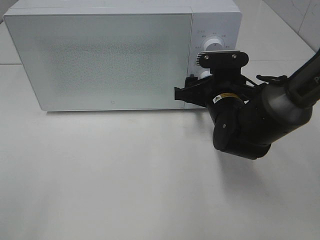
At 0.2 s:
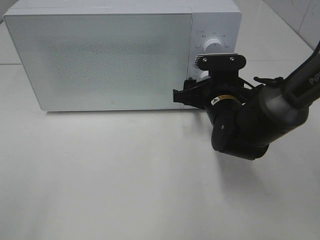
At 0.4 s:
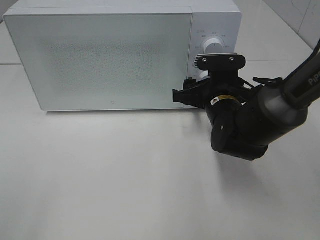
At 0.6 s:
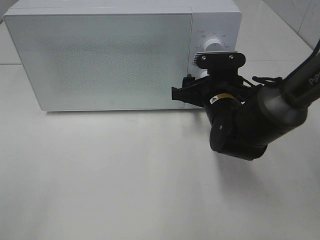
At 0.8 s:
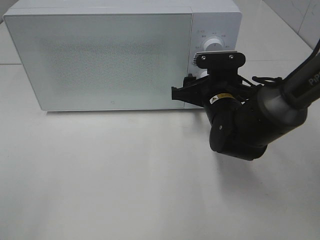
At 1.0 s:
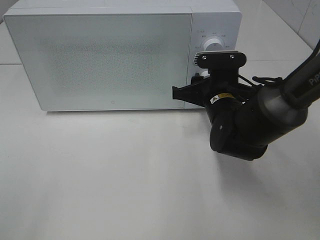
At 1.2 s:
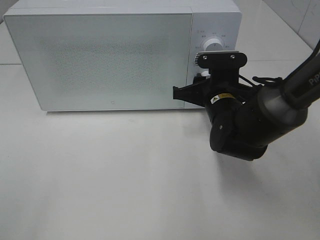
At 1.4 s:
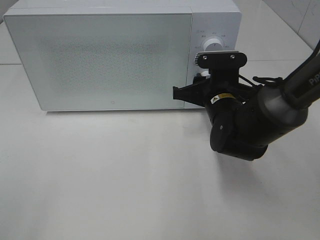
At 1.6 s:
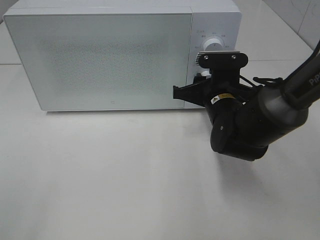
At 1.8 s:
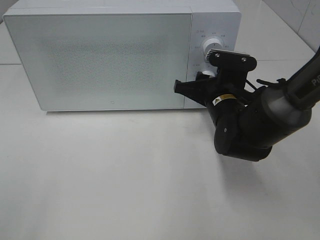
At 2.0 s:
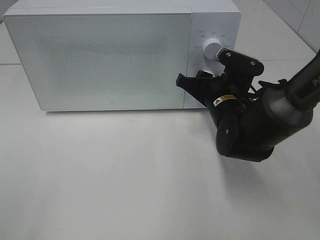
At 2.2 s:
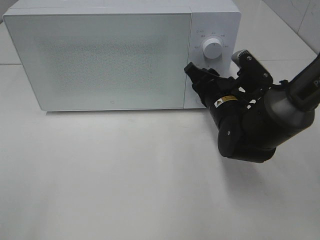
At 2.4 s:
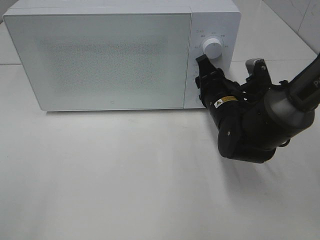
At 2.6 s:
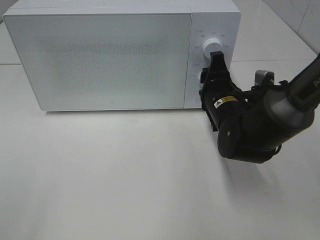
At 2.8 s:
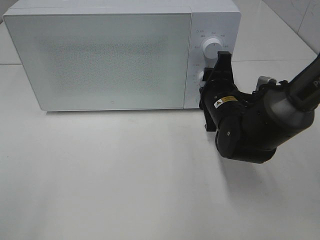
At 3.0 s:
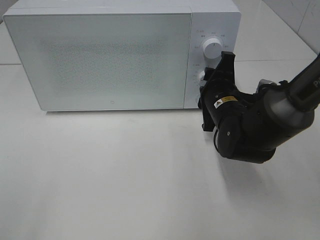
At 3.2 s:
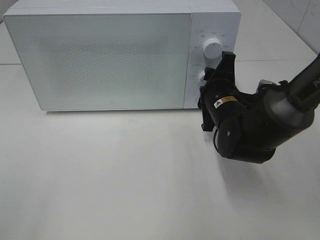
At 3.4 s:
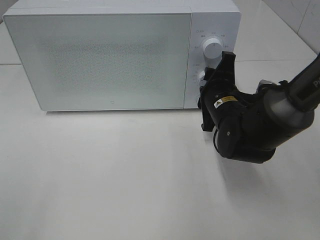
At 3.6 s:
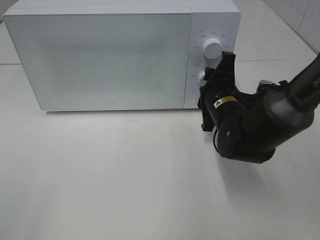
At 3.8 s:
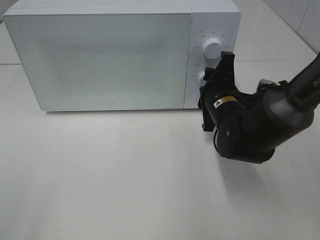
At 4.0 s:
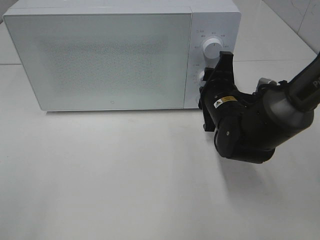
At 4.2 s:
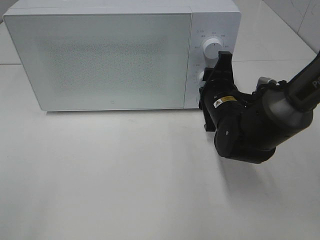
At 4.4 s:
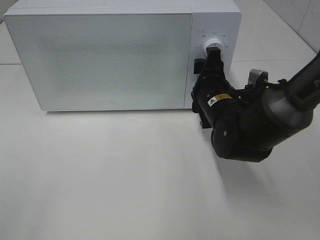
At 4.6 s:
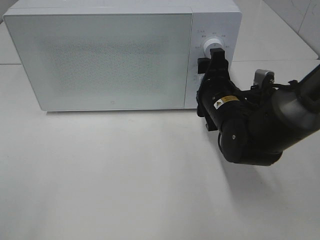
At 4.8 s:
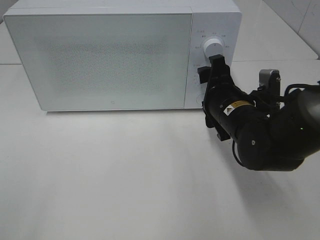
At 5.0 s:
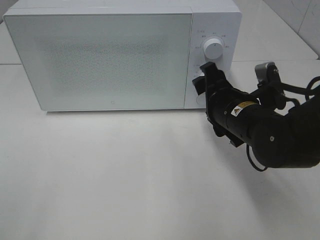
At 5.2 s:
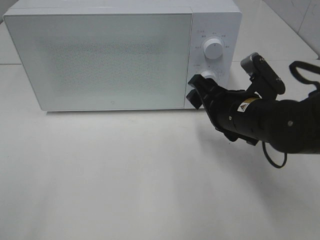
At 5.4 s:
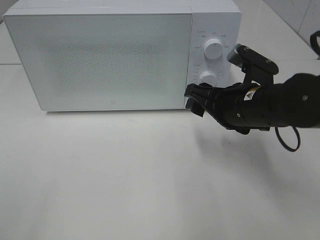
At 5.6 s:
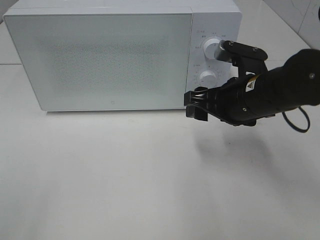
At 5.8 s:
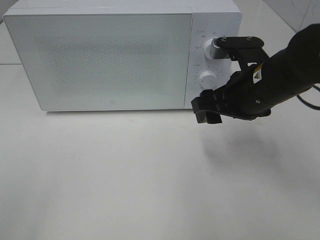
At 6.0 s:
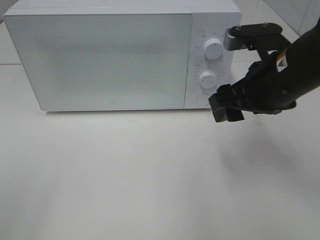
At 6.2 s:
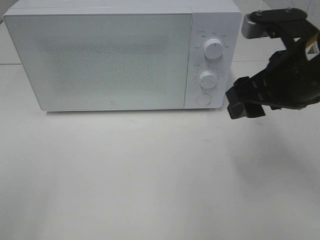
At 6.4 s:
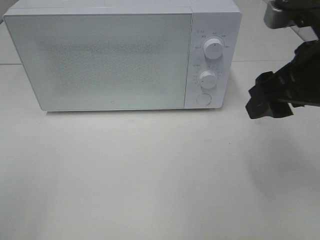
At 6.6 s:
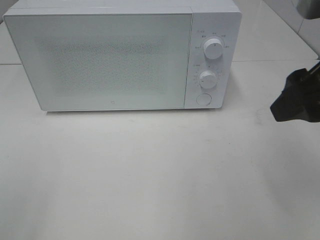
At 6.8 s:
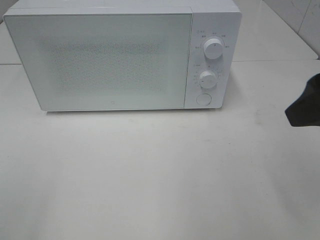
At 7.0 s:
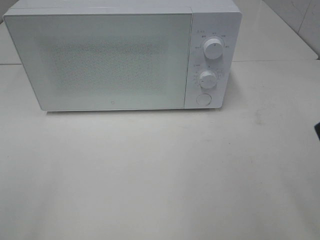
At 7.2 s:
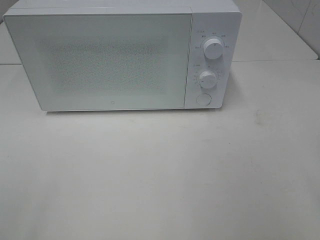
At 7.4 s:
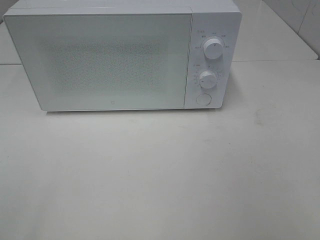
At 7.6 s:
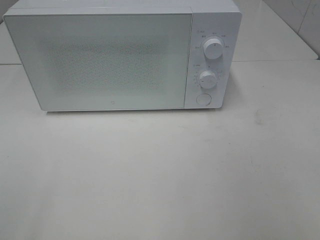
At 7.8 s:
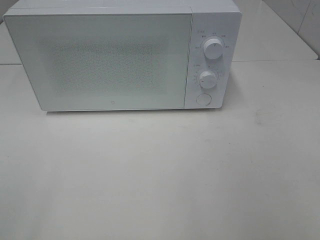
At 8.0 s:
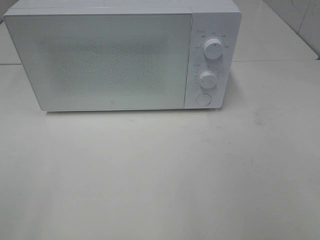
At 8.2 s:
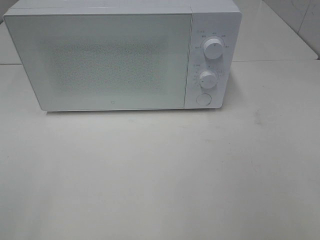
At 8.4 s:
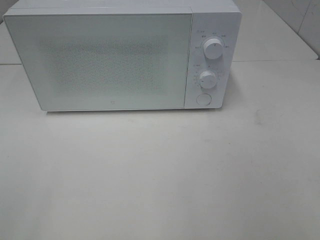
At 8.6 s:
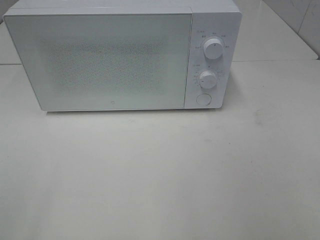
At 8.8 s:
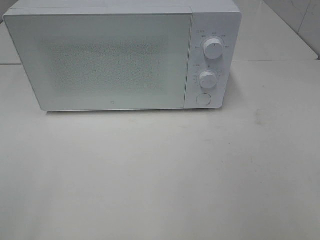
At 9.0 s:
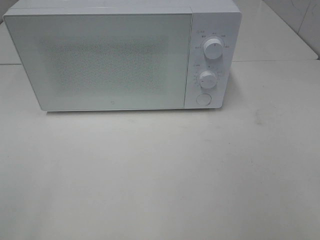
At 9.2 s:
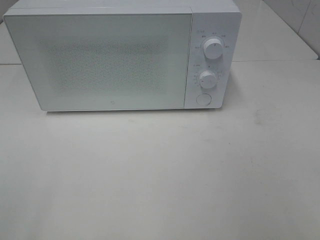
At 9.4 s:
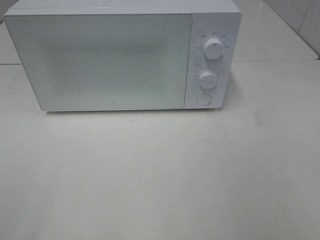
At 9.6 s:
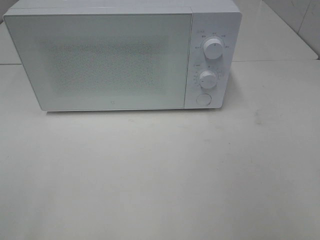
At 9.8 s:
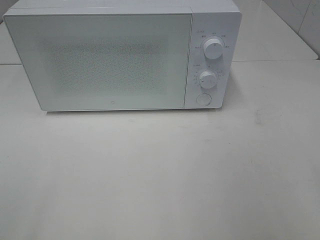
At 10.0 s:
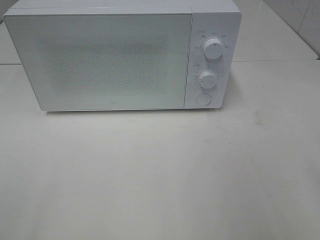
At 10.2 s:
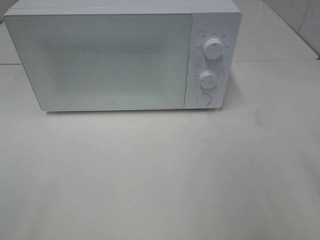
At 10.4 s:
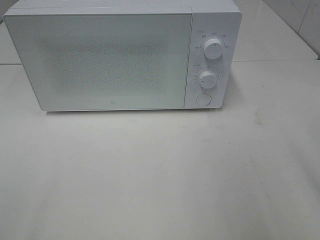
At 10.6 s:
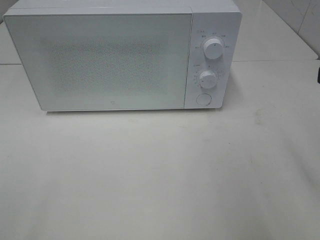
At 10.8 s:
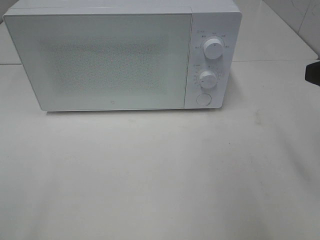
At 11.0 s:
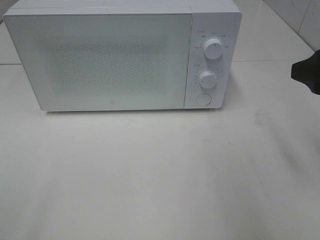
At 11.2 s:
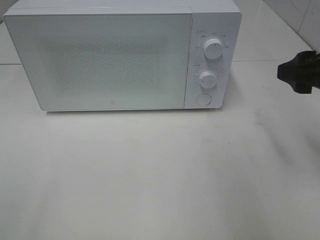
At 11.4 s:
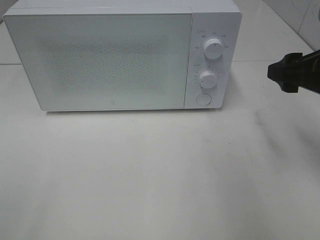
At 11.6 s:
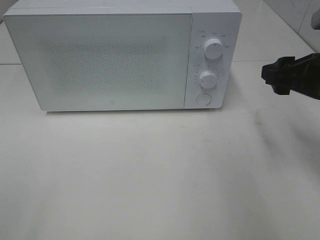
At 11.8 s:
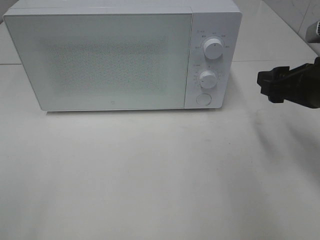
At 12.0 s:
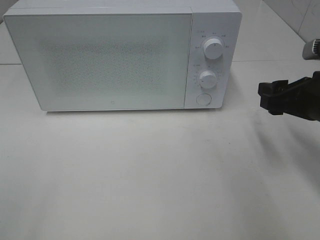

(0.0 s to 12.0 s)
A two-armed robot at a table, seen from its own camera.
Task of the whole recording: Heat the burger.
Step, 0.0 s - 4.4 s: Right hand: twist timer button.
0.0 s - 1.6 s: The right gripper closes up.
3.0 s - 4.4 s: There are only small adjustments of the grippers.
4.4 s - 6.0 s: The right gripper heads upward and backward, covering approximately 15 cm.
6.0 s - 7.6 s: The right gripper shifts some 25 cm backward and to the right.
10.4 s - 12.0 s: The right gripper travels downward and forward by roughly 15 cm.

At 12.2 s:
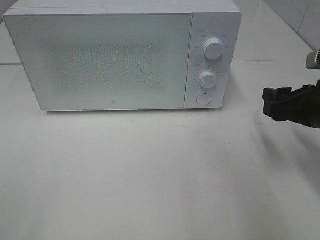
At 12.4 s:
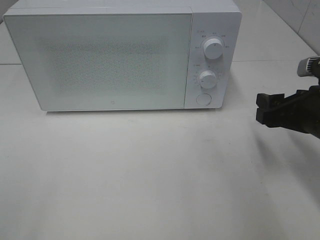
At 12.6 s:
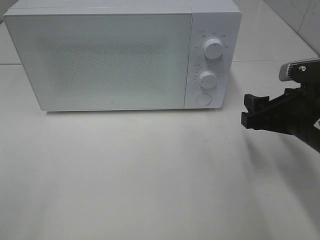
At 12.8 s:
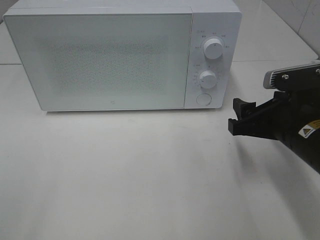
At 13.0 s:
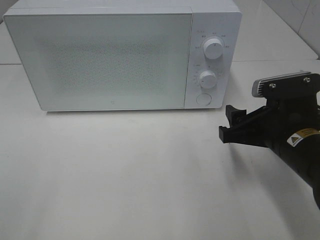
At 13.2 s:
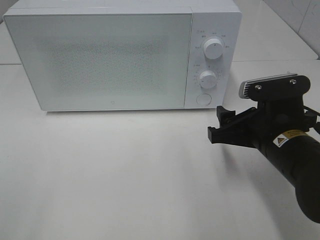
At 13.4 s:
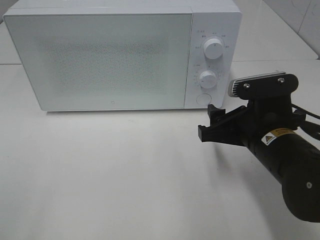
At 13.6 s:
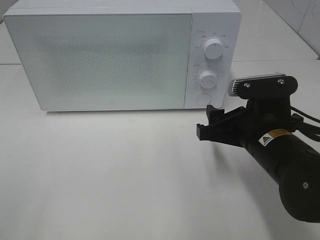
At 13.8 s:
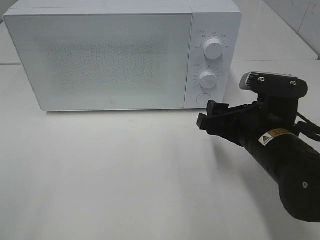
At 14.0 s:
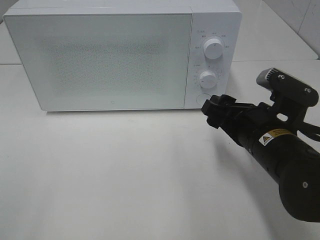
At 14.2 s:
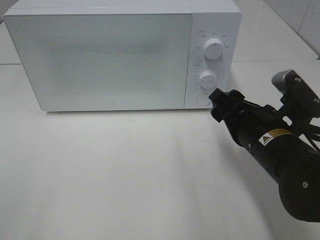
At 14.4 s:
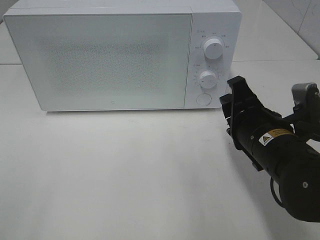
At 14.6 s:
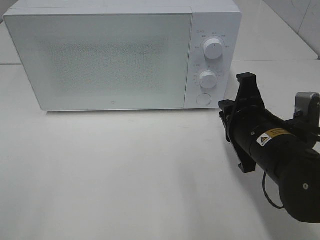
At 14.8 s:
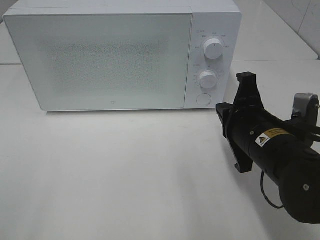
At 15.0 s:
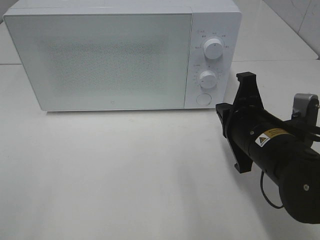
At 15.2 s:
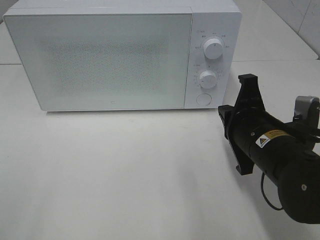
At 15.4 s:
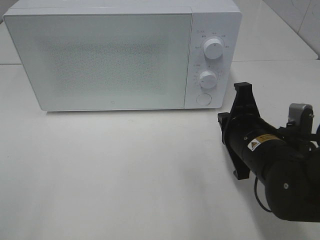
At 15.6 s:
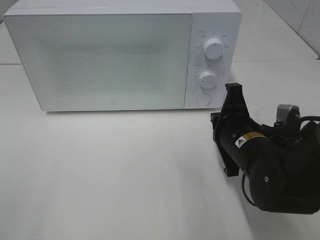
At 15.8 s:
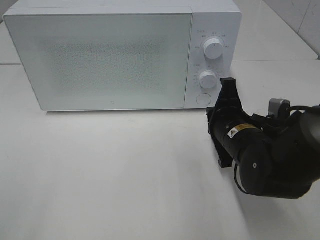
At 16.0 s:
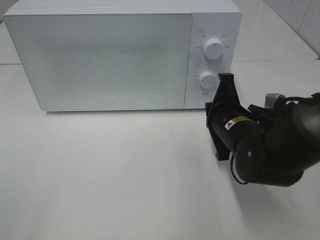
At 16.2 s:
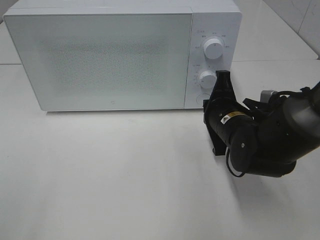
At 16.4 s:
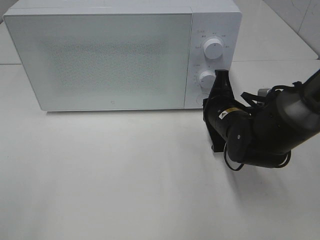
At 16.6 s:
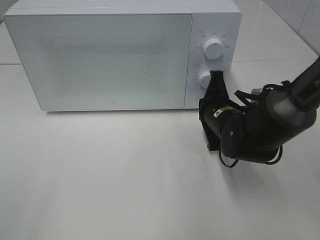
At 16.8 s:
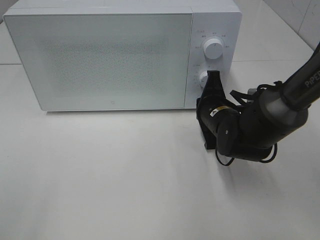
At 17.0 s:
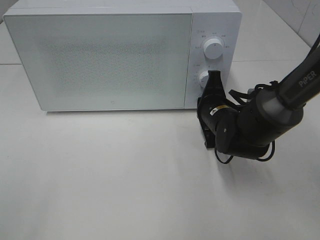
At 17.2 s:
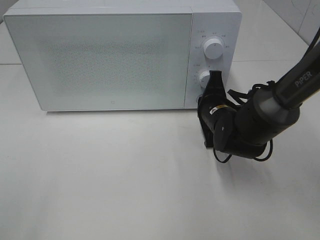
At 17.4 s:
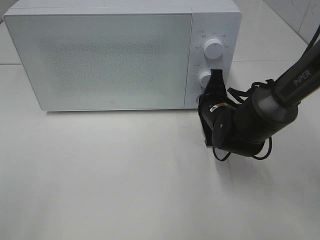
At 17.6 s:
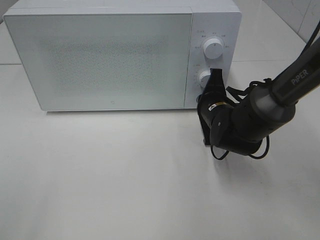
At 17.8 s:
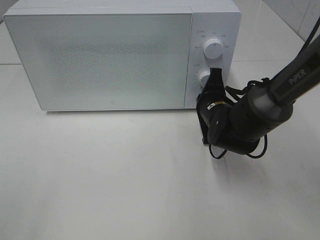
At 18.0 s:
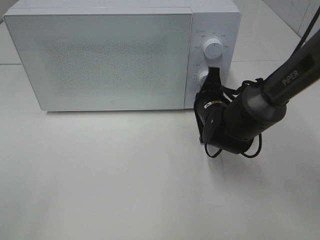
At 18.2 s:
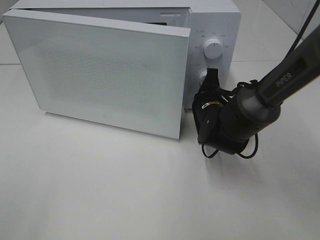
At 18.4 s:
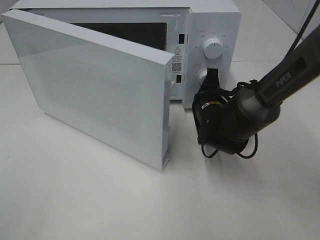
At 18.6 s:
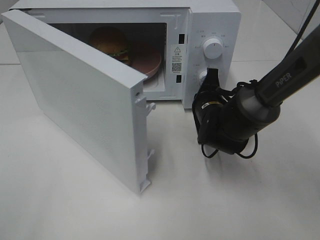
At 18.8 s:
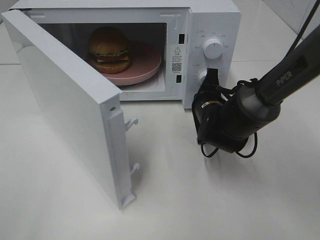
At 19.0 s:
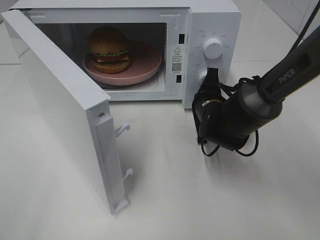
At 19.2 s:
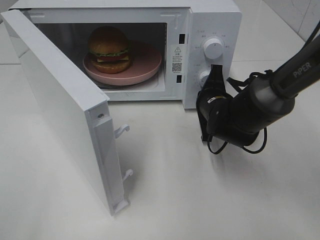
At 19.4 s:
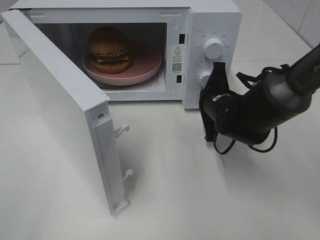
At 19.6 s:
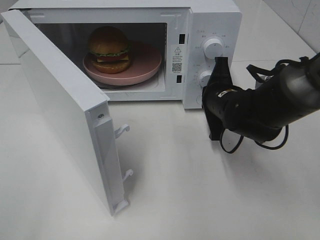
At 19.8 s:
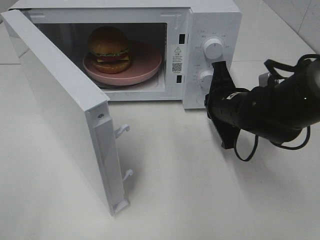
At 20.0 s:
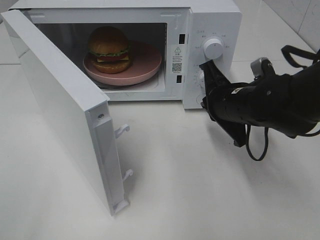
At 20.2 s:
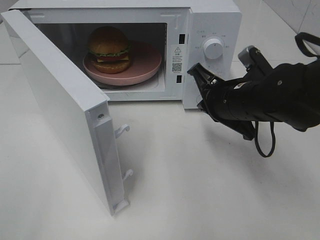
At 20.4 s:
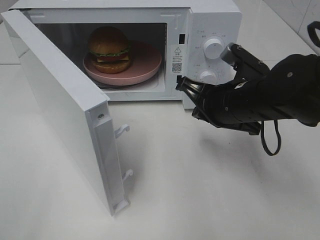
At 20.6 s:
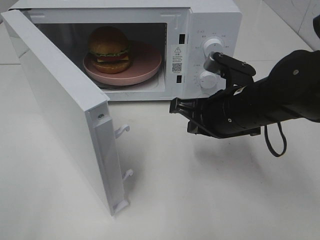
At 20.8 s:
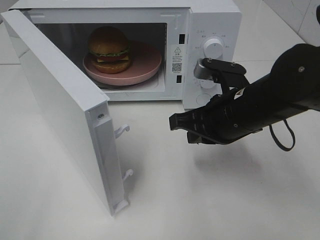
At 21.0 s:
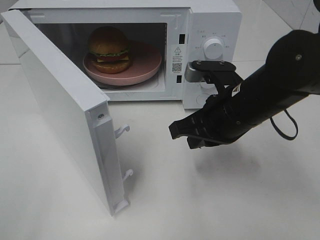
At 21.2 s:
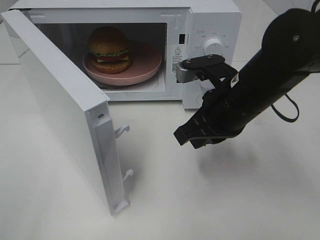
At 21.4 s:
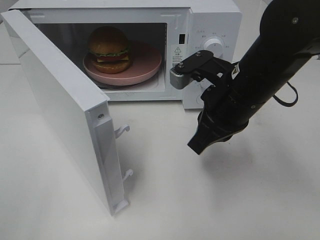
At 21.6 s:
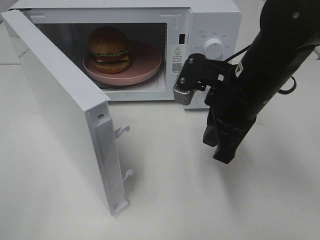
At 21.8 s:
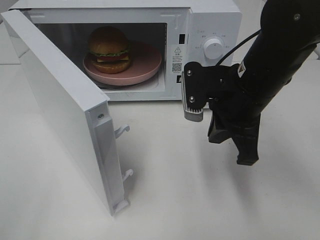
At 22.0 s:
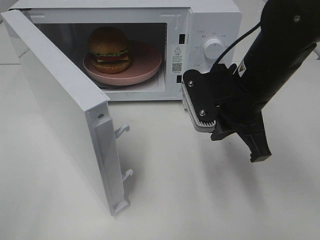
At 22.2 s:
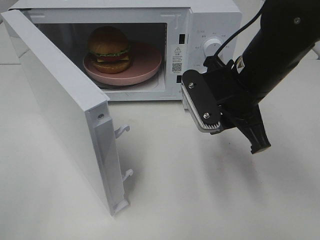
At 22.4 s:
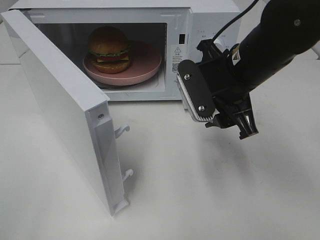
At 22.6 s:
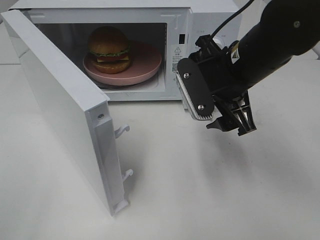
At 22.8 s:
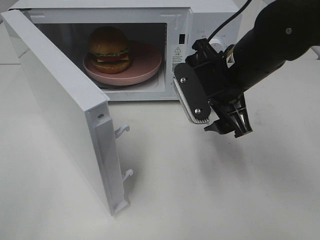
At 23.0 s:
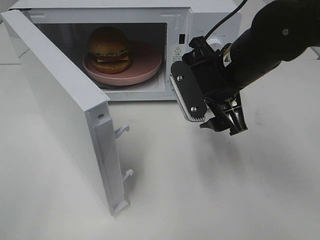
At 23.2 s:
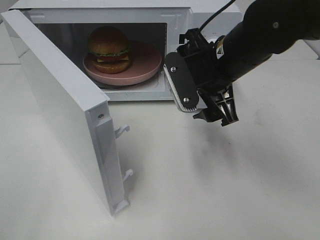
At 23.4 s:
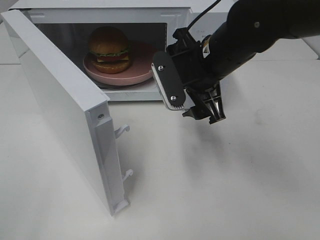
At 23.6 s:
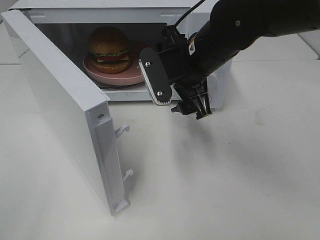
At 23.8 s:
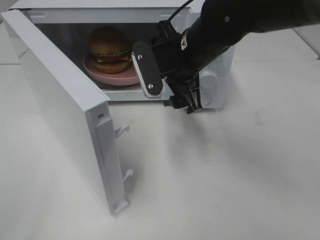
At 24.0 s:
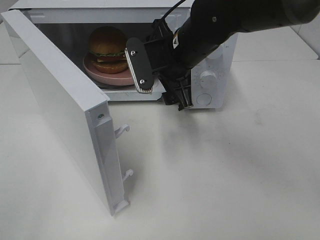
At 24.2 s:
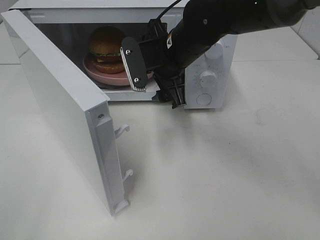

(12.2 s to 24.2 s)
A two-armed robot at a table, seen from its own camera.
Task of the whole recording: Heat the burger.
Step, 12.2 s - 19.4 s: Right hand: press the switch.
12.2 s - 13.8 s: The right gripper goes about 10 cm to the left.
13.8 s - 15.2 s: The right gripper closes.
15.2 s - 16.6 s: The right gripper heads forward and downward, covering roughly 10 cm.
16.6 s - 18.2 s: The grippers stay close to where they were, moving slightly.
18.2 s - 19.8 s: The right gripper moves some 5 cm.
19.8 s - 21.2 s: The right gripper heads upward and backward, covering roughly 10 cm.
21.2 s - 22.6 s: The right gripper opens its fingers.
22.6 s - 24.2 s: The right gripper shifts approximately 10 cm to the left and forward.
